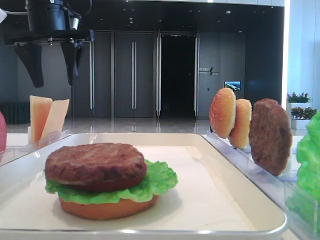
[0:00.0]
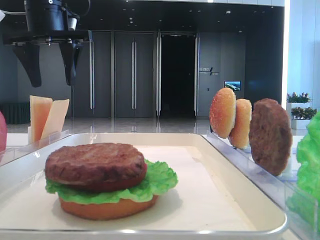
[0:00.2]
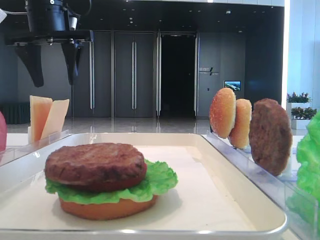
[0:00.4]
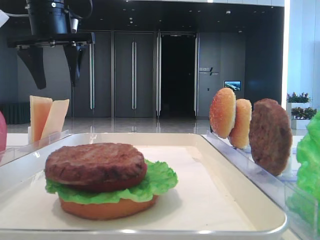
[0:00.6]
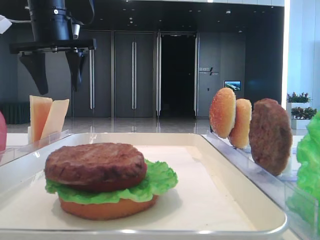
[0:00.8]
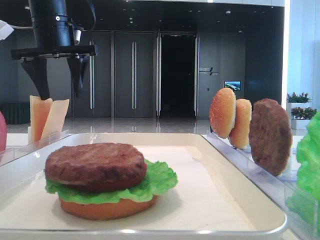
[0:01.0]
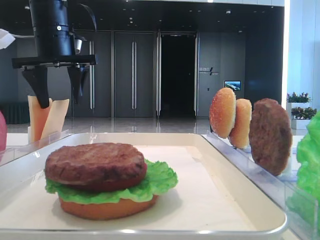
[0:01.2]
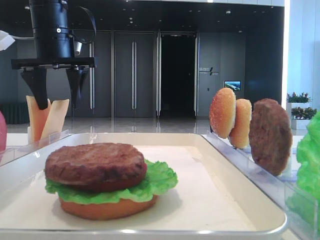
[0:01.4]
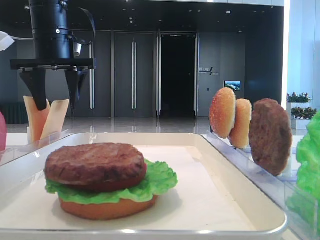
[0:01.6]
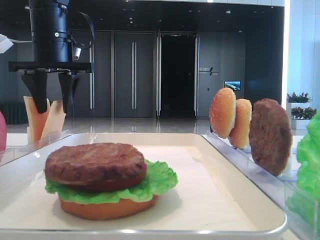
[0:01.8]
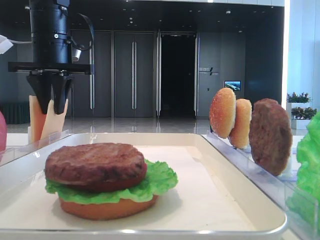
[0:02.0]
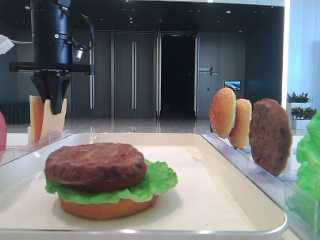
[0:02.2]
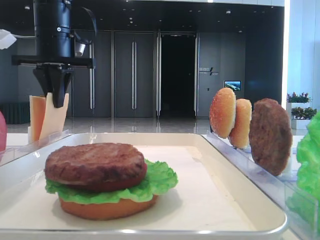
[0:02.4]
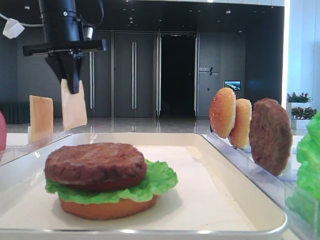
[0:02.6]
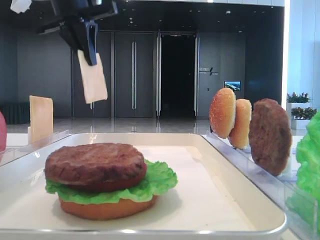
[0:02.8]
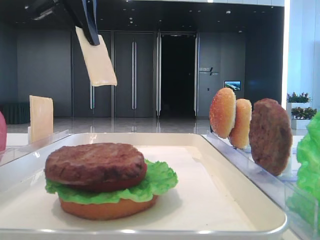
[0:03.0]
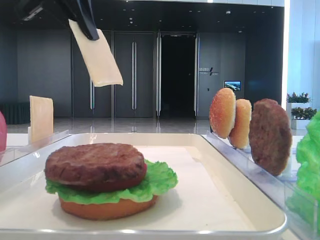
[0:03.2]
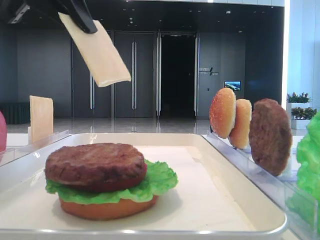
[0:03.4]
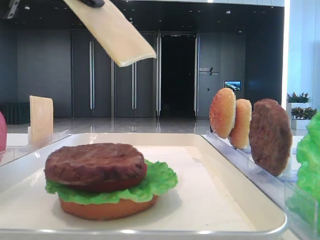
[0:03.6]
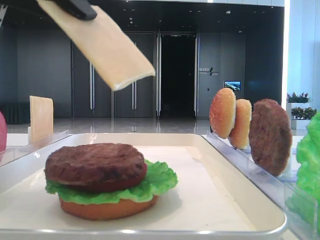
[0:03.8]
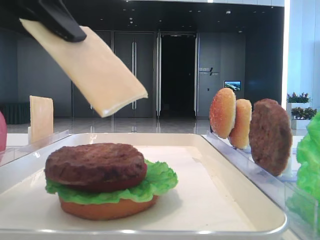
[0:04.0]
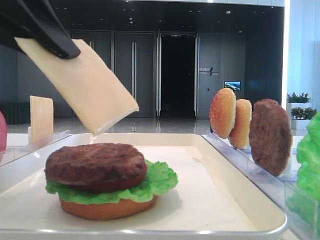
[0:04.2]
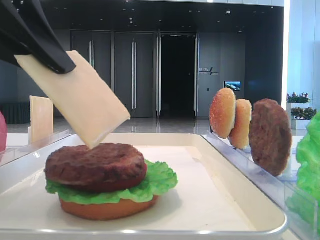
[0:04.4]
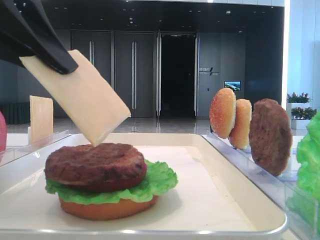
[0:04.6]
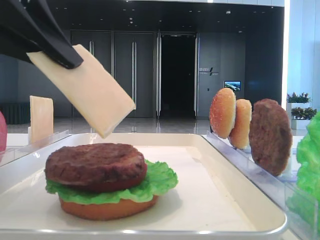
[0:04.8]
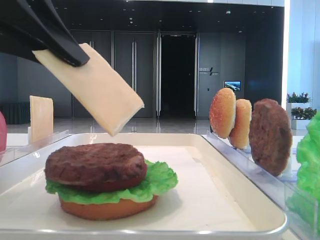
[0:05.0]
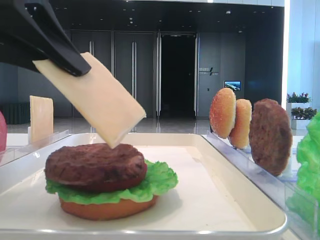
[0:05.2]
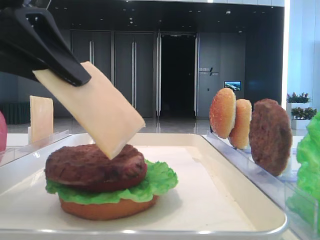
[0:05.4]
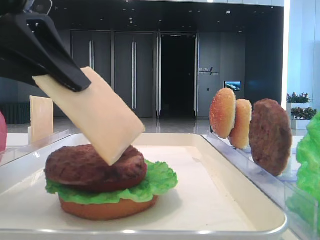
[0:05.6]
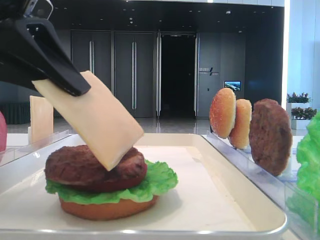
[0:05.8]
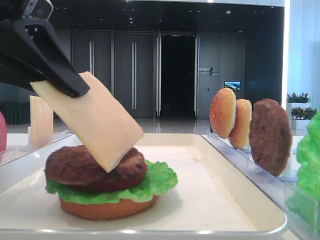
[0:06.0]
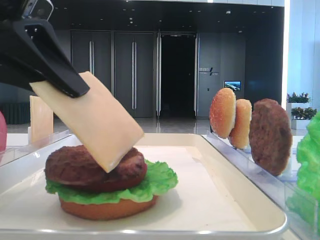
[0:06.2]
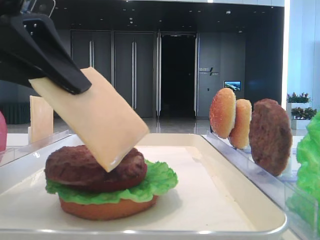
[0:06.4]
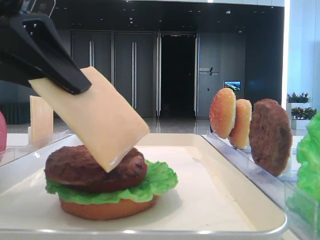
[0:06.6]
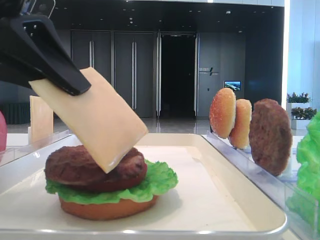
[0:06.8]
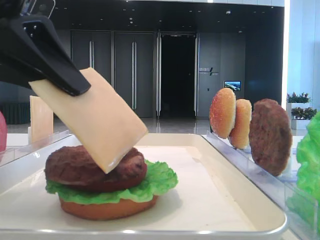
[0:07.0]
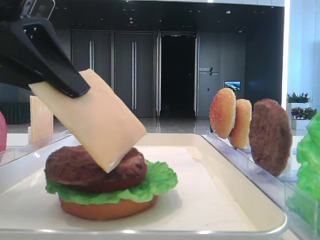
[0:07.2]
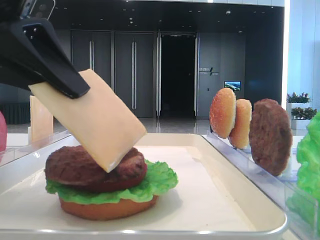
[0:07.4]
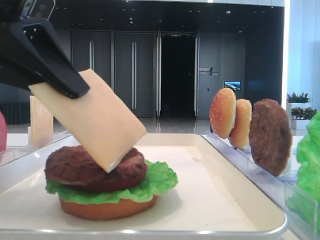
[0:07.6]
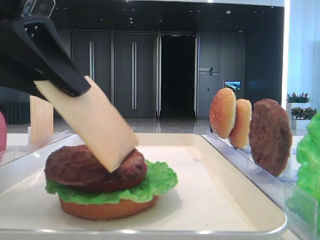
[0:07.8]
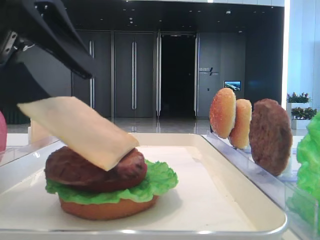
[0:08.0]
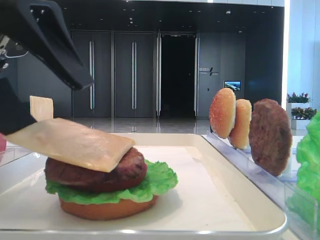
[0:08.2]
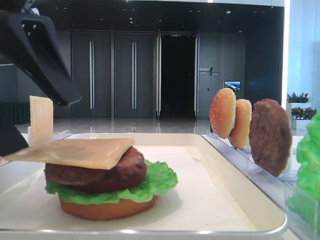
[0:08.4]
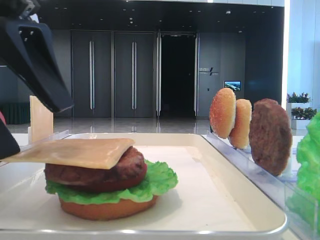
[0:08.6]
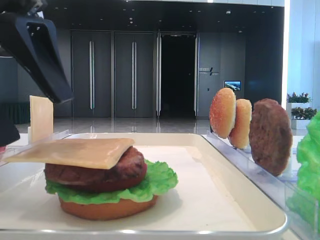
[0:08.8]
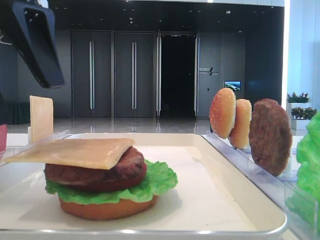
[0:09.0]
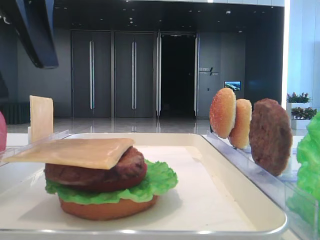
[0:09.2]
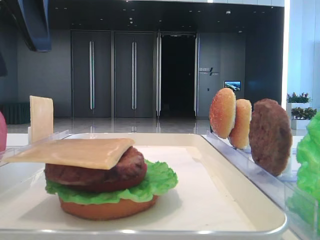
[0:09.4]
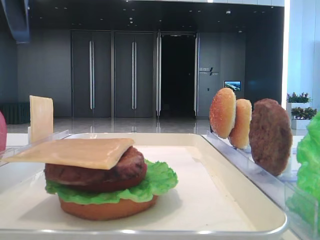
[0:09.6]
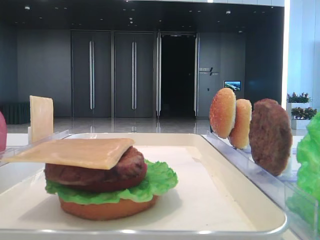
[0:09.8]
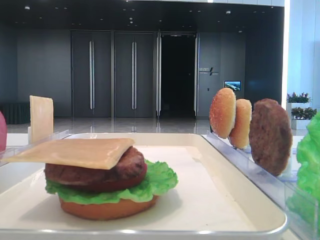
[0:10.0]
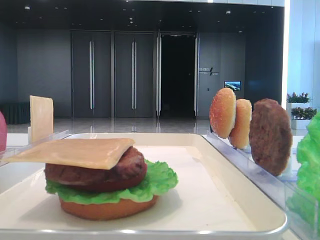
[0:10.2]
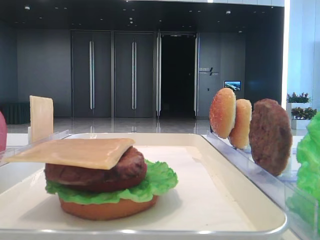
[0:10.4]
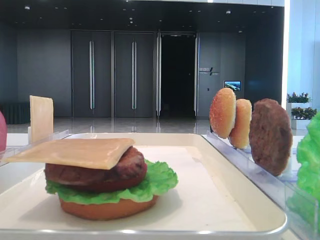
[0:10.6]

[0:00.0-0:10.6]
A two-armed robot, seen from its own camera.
Step, 0:00.0 to 0:02.0: Pick up the cheese slice with the left hand.
Step, 0:02.2 to 0:08.4: Place the cheese slice on the patty with the left hand.
0:00.0 to 0:01.6: The grippers move only a little.
0:01.6 to 0:03.0: The left gripper heads upward and backward, covering approximately 10 cm, and closes.
0:03.0 to 0:04.6: The left gripper moves backward and downward, some 20 cm.
0:04.6 to 0:07.6: The grippers stay close to where they were, moving slightly.
0:07.6 to 0:09.0: The left gripper opens its fingers.
0:09.0 to 0:10.6: The left gripper heads to the left and upward, covering some 15 cm.

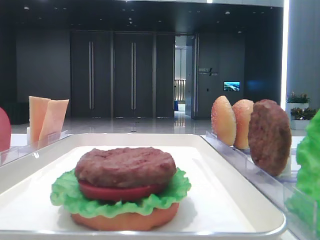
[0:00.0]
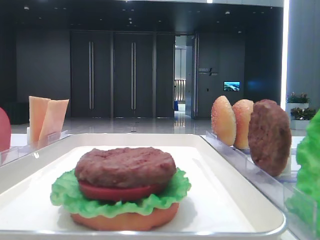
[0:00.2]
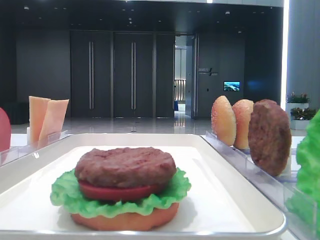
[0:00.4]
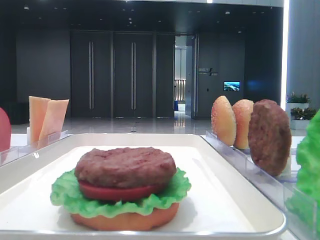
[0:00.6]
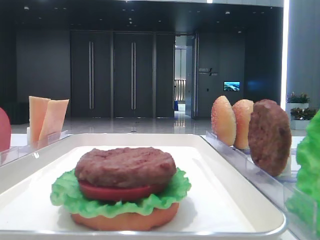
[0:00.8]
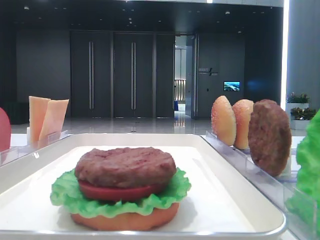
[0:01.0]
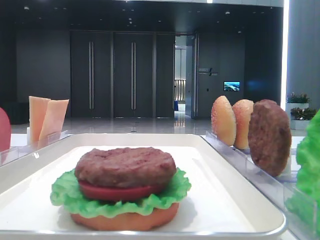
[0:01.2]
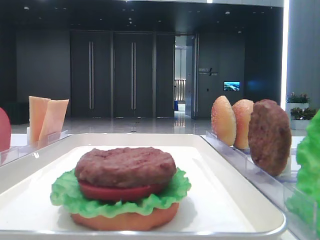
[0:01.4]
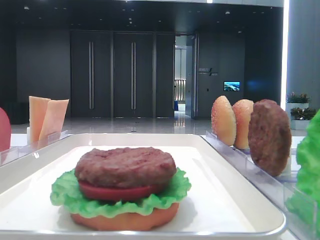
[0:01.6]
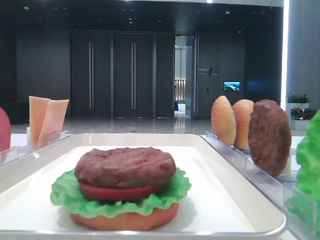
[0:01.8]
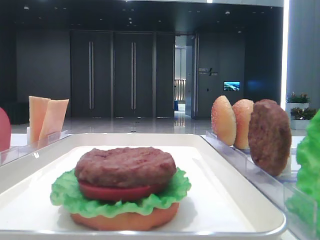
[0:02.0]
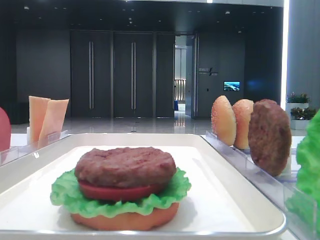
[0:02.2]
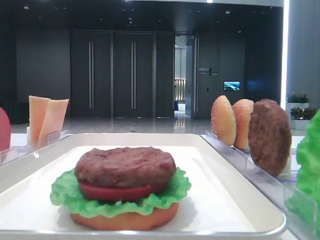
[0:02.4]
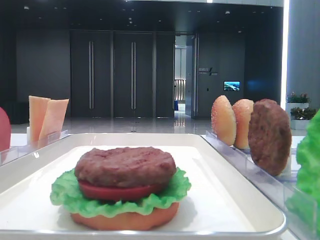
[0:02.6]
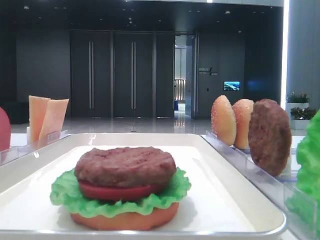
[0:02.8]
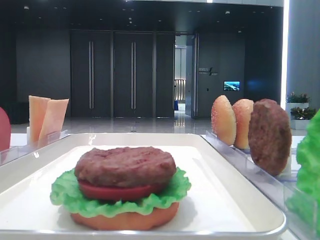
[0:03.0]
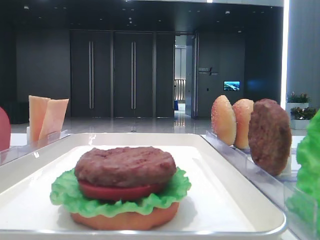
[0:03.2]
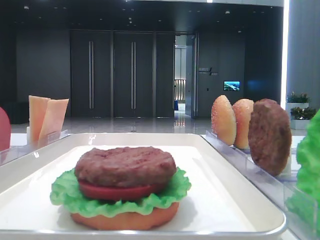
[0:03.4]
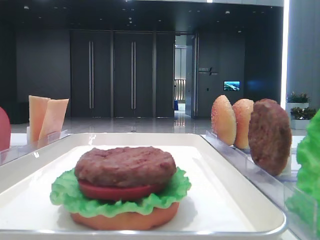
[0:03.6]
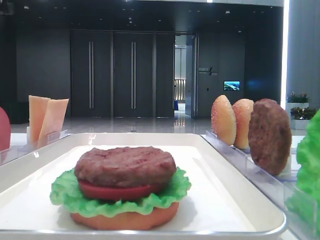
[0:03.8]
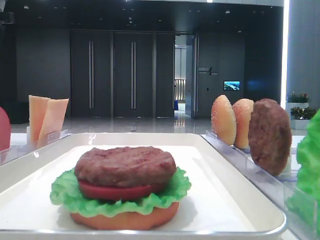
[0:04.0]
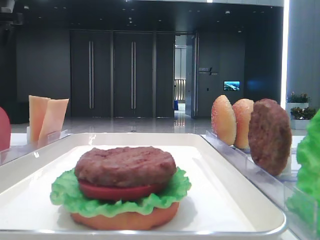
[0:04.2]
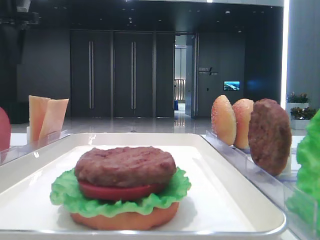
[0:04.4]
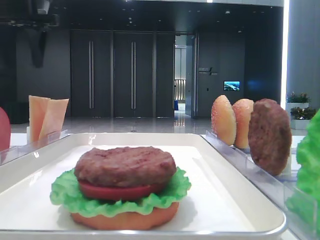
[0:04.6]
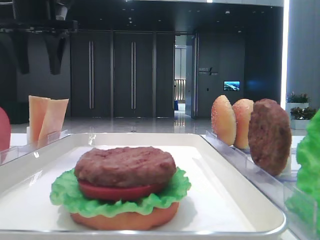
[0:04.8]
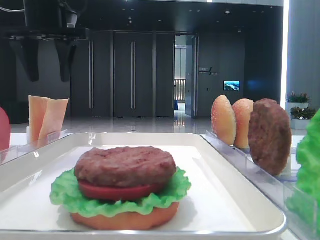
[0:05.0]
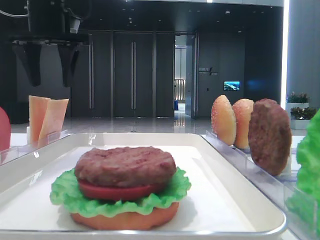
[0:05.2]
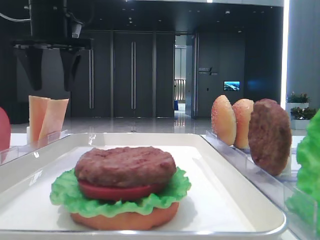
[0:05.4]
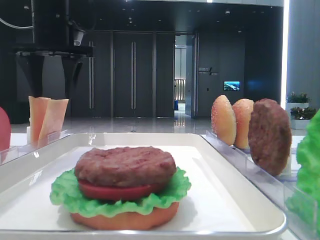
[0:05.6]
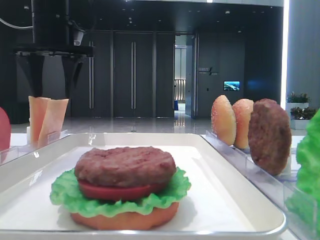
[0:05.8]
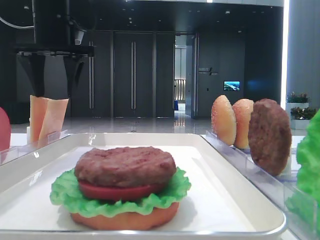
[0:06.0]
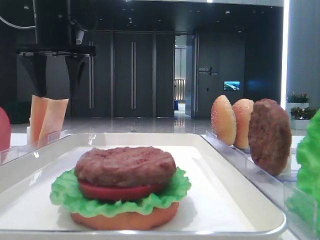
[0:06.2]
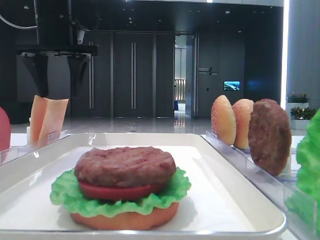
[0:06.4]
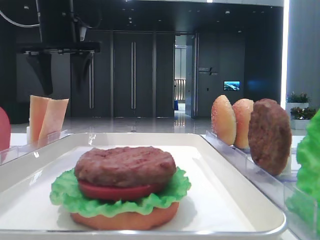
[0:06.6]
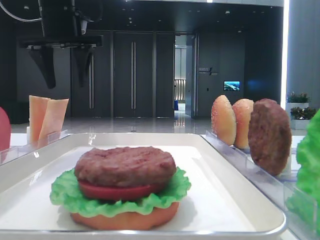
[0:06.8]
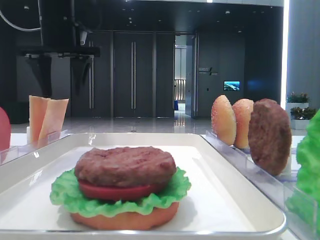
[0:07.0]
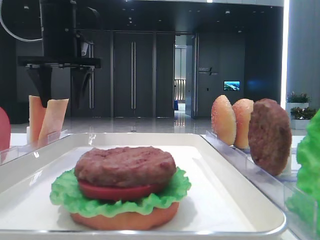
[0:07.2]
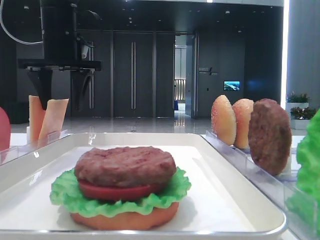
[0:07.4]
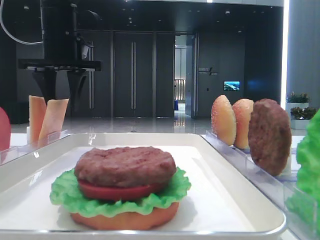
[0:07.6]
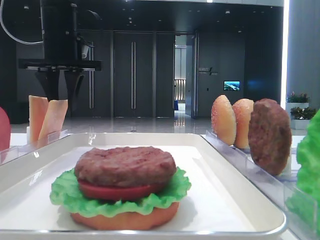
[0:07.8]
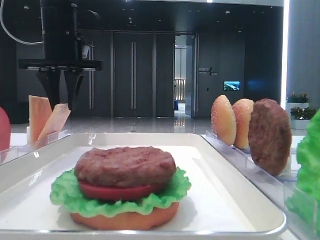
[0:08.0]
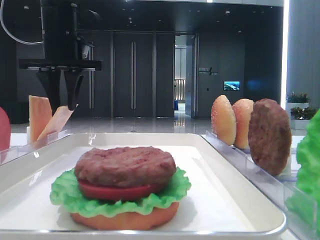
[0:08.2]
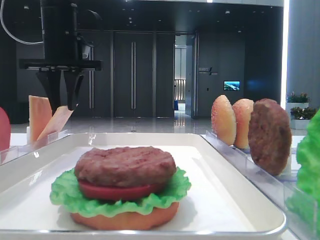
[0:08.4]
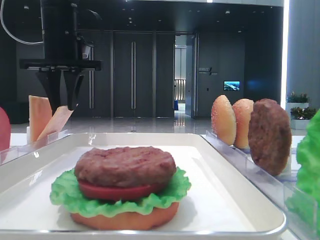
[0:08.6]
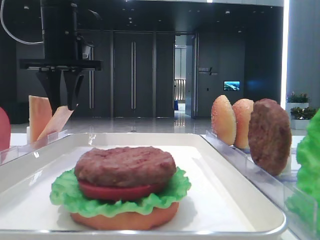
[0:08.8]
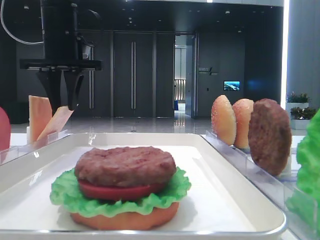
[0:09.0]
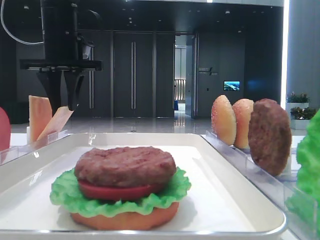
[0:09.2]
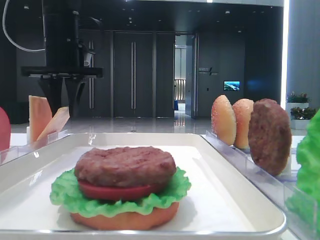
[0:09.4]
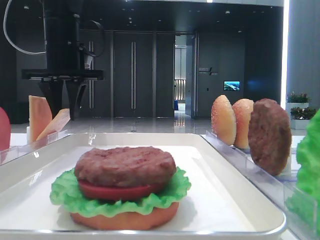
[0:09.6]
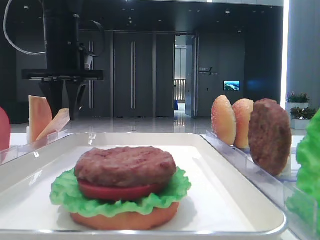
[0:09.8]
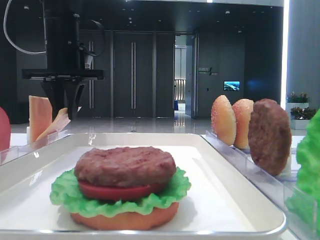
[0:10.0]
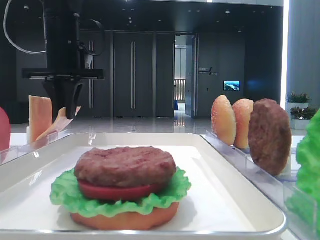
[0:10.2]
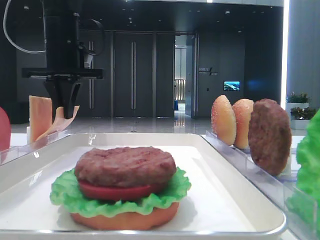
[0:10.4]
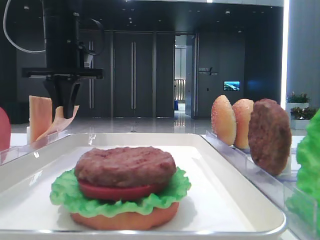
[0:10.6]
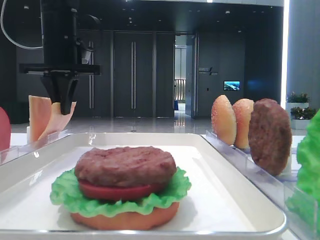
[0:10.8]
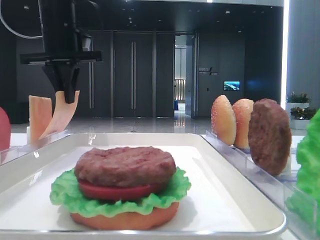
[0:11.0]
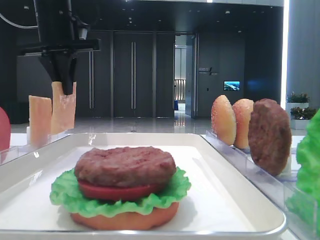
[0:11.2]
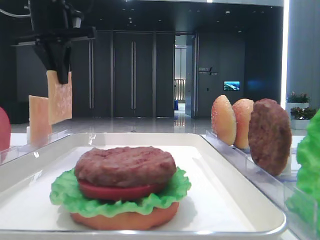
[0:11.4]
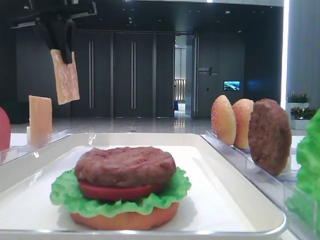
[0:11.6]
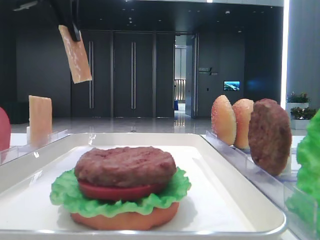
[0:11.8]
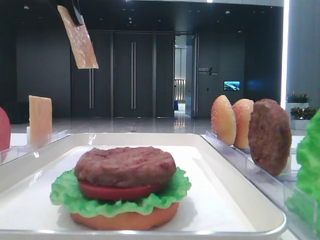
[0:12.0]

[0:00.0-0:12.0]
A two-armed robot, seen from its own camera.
Step, 0:00.0 to 0:10.8: Pick up the cheese slice with the left hand.
0:04.4 to 0:06.0: The left gripper heads to the right and downward, covering roughly 10 cm.
0:06.0 to 0:07.6: The grippers make only small movements.
0:07.6 to 0:09.0: Both grippers stay put.
0:09.0 to 0:10.4: The left gripper closes up.
0:10.4 to 0:12.0: The left gripper moves upward and backward, approximately 15 cm.
